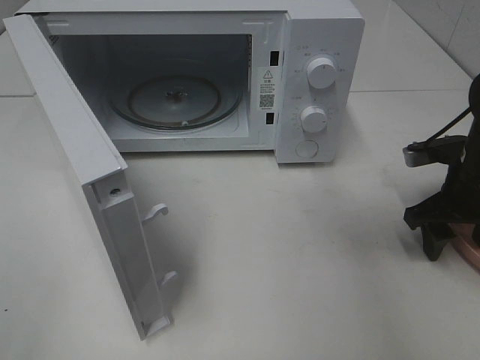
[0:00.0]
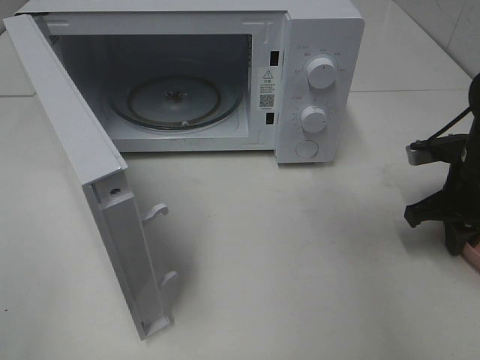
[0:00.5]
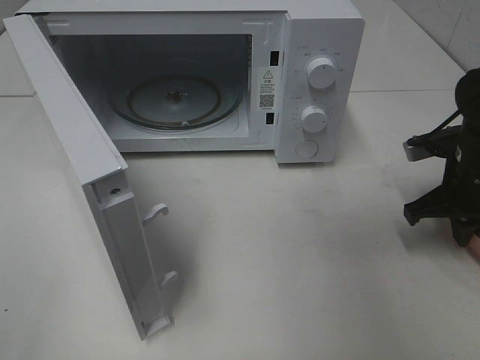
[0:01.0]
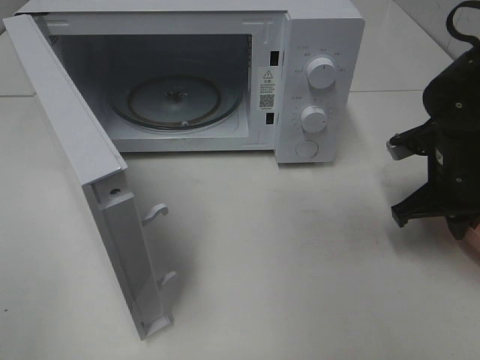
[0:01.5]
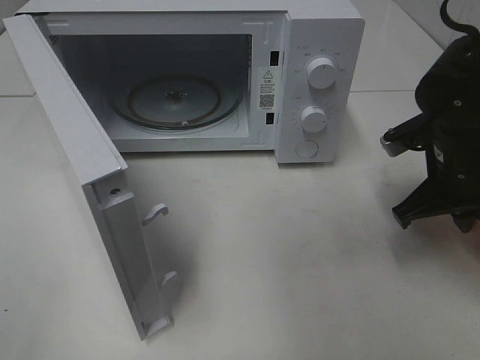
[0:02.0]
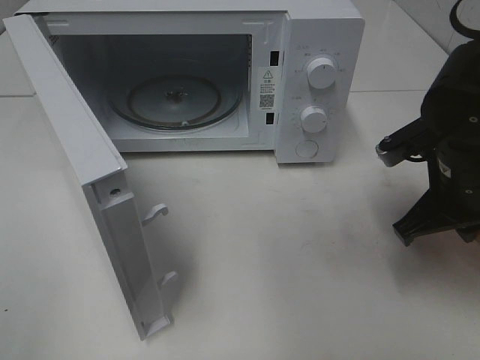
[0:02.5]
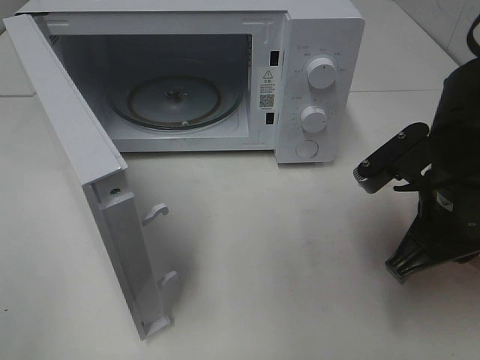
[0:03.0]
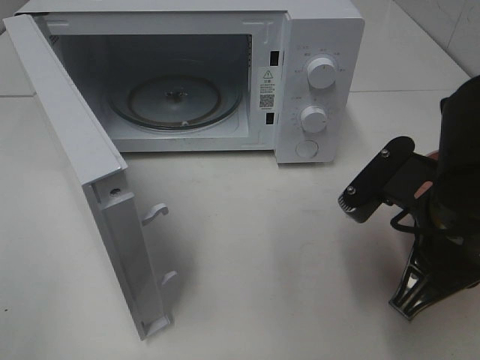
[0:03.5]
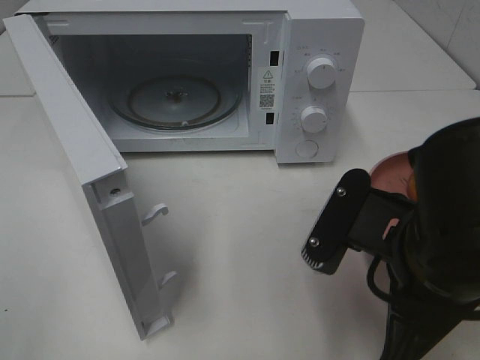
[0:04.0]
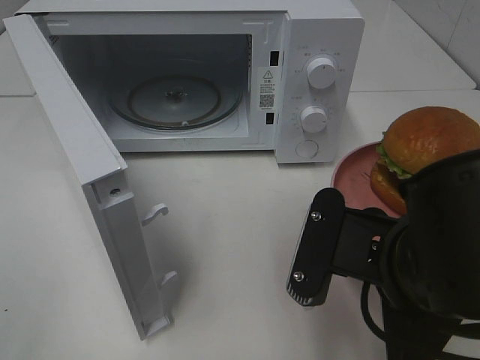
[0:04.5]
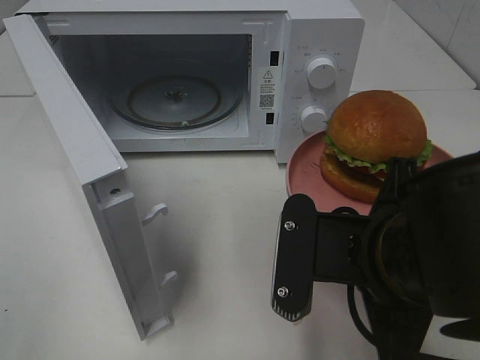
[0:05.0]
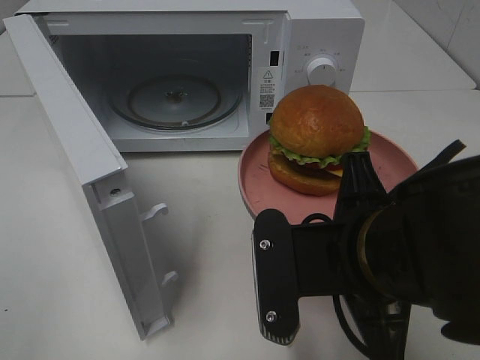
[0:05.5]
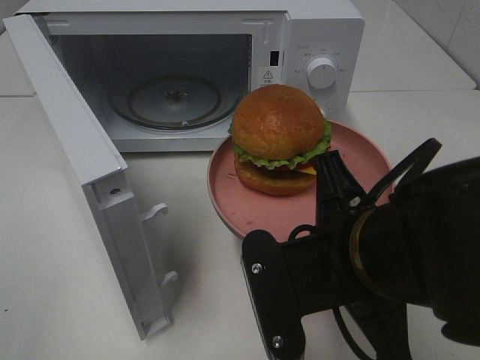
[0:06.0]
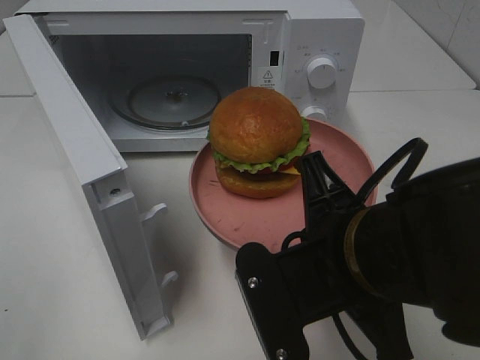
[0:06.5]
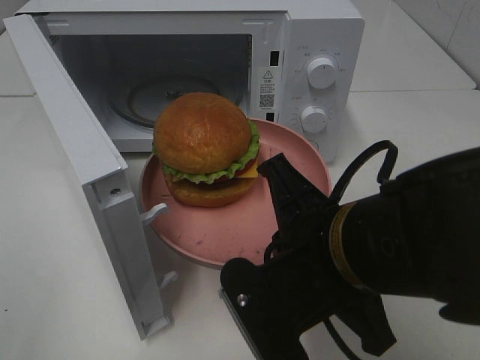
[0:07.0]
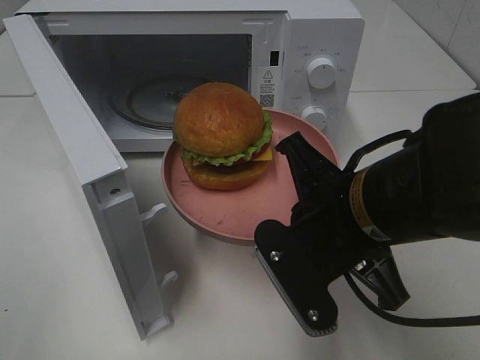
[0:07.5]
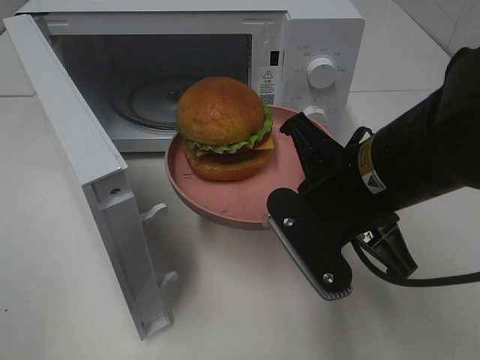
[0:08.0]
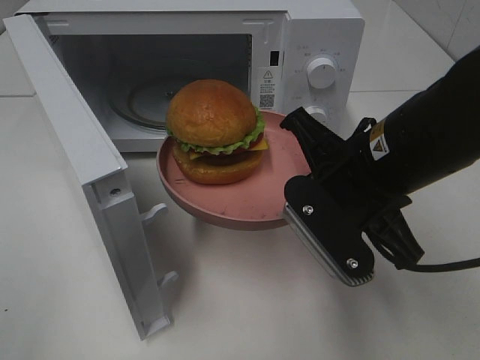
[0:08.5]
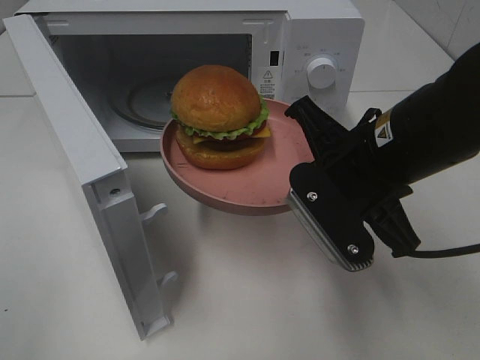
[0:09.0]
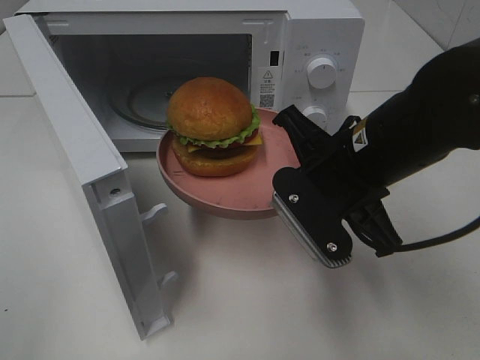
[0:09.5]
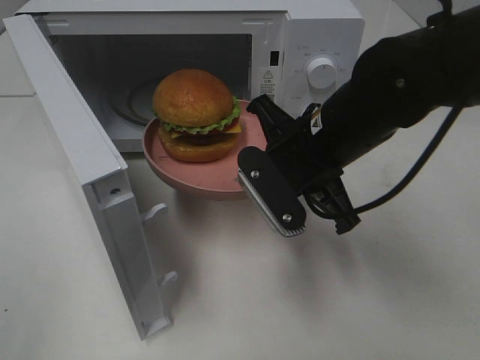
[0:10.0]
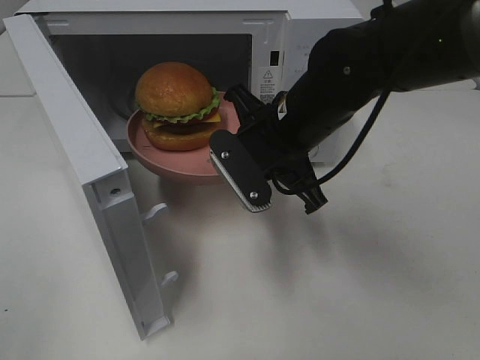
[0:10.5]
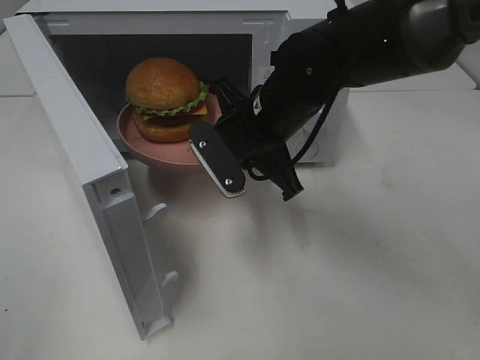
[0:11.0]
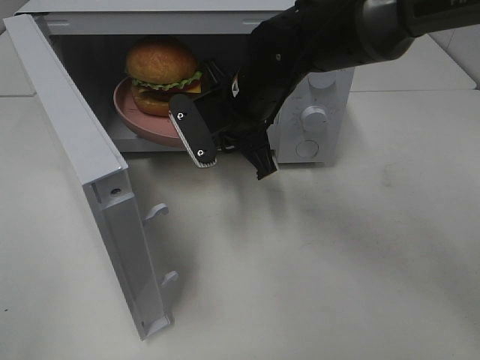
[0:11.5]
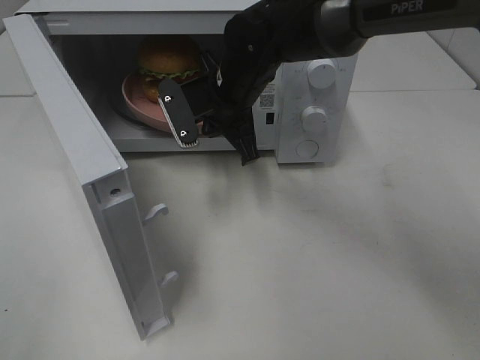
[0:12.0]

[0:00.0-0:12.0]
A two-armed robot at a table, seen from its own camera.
Task of the whole recording: Heat the burger.
0:00.0 to 0:02.0: The right gripper heads to the left, covering about 5 cm, and closes up.
0:02.0 to 0:04.0: The right gripper moves backward and to the left, approximately 20 cm.
0:06.0 to 0:08.0: The right gripper goes roughly 5 cm forward.
0:08.0 to 0:10.0: The right gripper travels forward by approximately 5 cm.
0:10.0 to 0:12.0: The right gripper heads forward and to the left, covering roughly 15 cm.

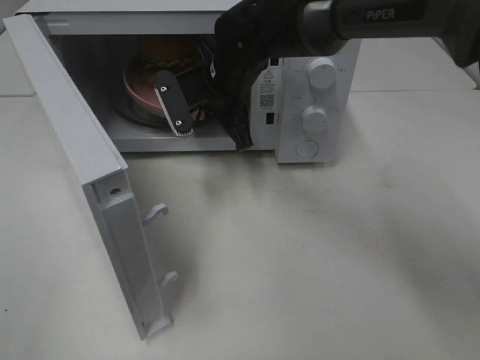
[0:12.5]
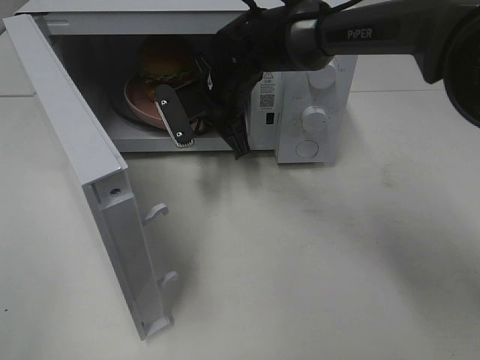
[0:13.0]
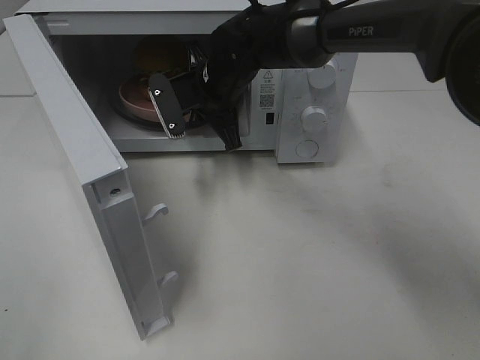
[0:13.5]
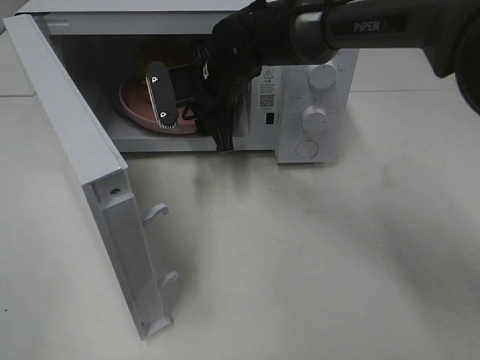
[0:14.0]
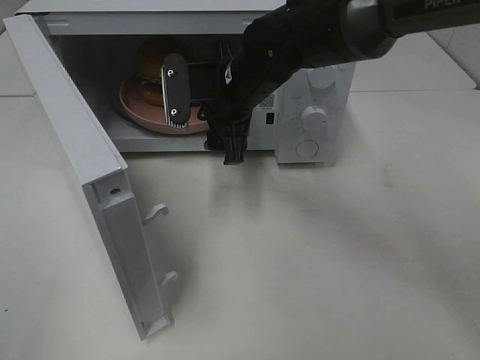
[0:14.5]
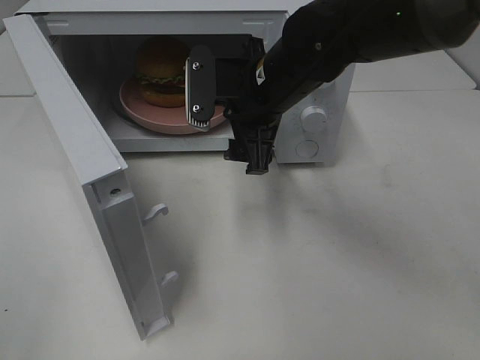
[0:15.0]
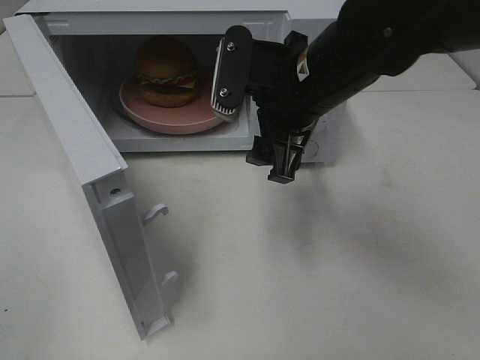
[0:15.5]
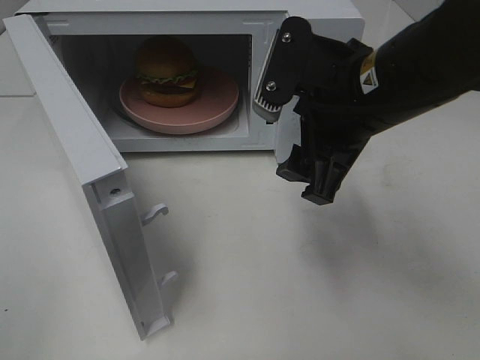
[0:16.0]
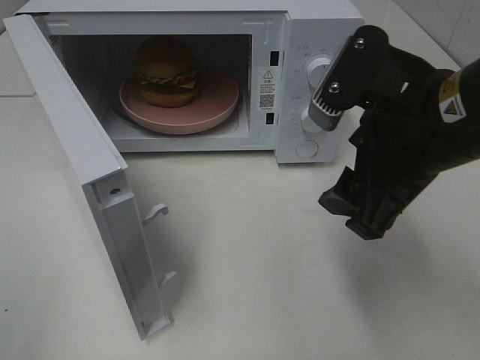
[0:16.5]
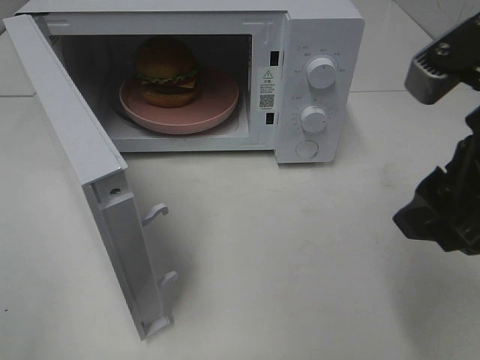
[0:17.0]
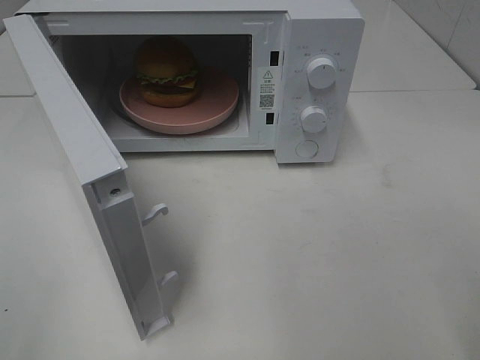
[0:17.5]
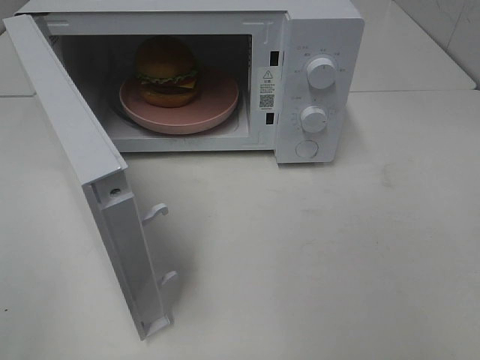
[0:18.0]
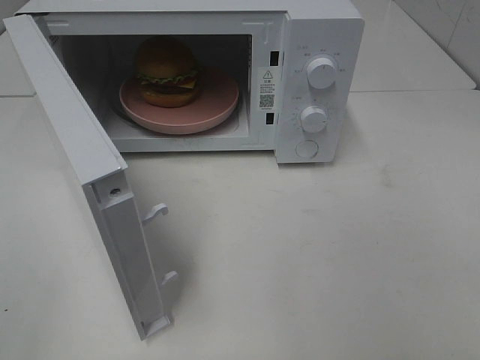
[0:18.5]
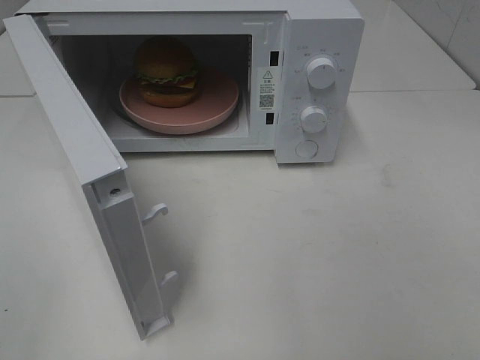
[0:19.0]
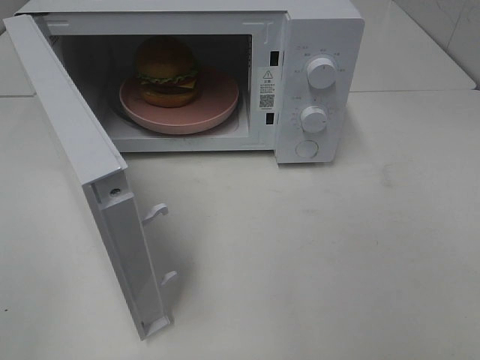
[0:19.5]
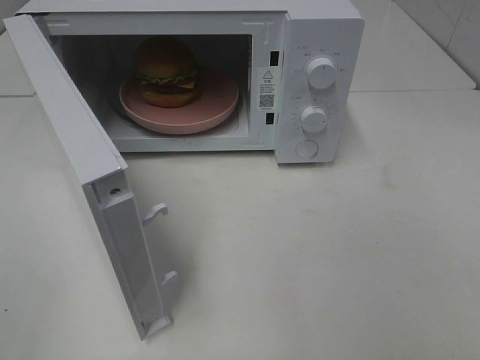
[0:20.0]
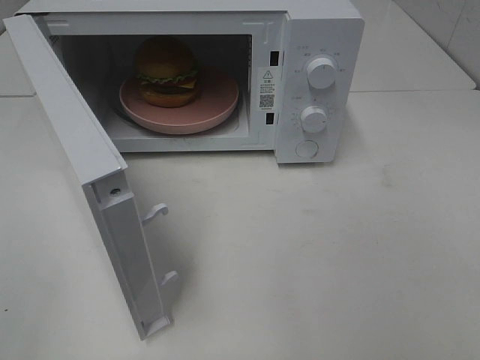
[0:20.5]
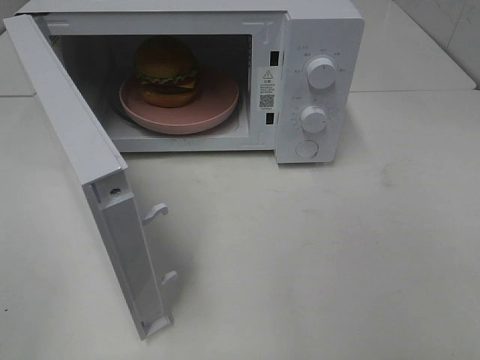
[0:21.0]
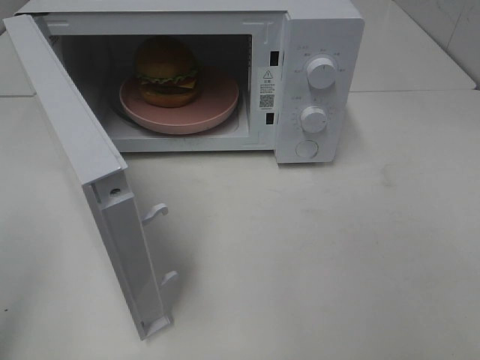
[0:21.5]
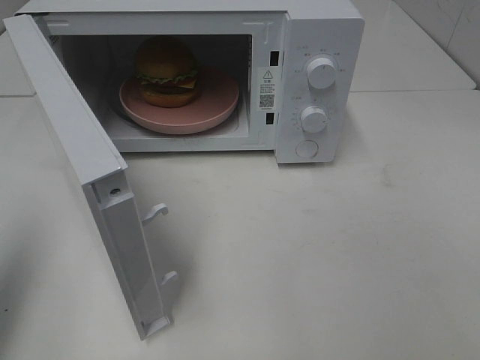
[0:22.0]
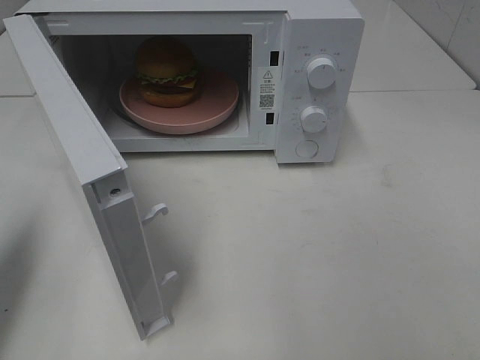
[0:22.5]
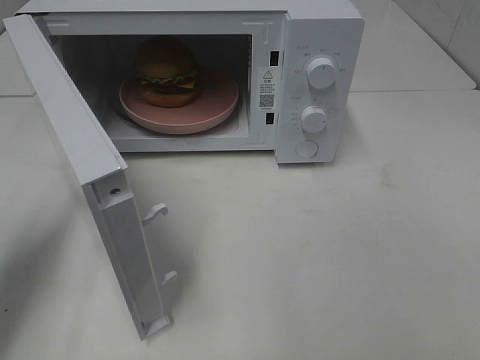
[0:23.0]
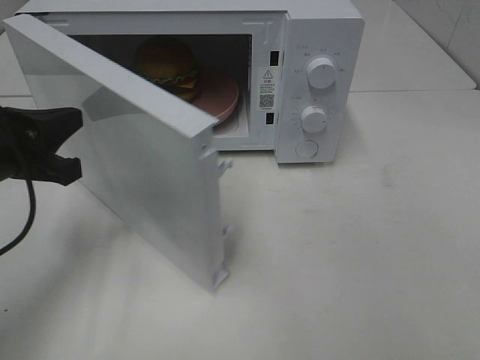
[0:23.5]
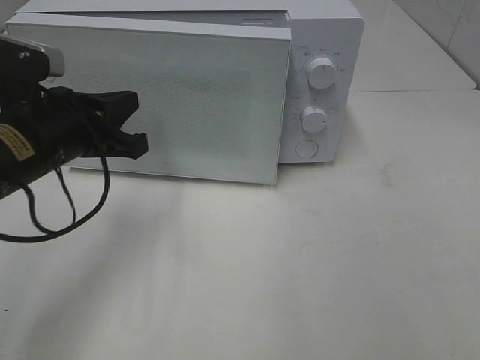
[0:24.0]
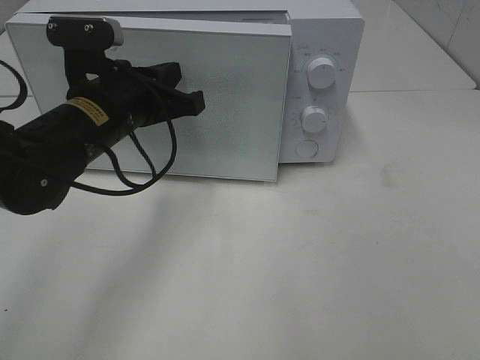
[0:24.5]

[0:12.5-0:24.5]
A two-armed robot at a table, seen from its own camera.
Task of the whole recording: Heat the burger.
0:12.5 to 0:14.5: The right gripper opens its fingers.
0:14.5 to 0:16.5: The right gripper shifts about 25 cm backward, to the right and upward.
0:16.5 to 0:18.5: The right gripper travels backward and to the right by some 25 cm.
0:20.5 to 0:22.5: The left gripper travels forward by roughly 20 cm, and closes.
0:22.5 to 0:24.5: The left gripper heads to the right and forward, covering some 25 cm.

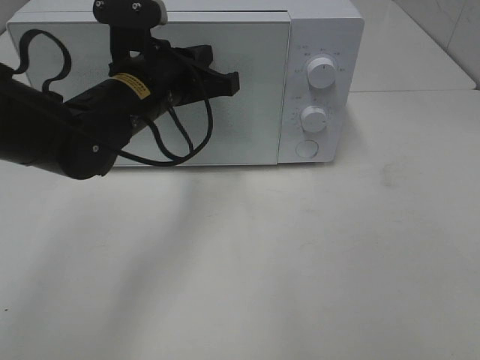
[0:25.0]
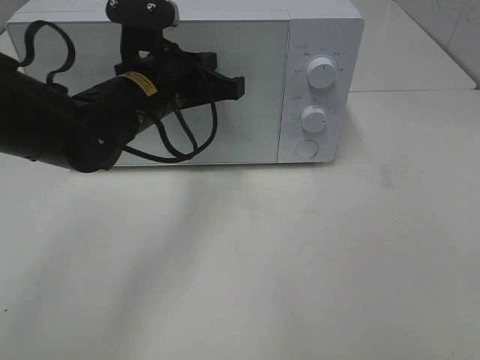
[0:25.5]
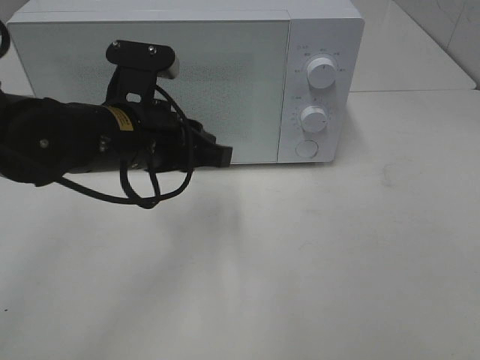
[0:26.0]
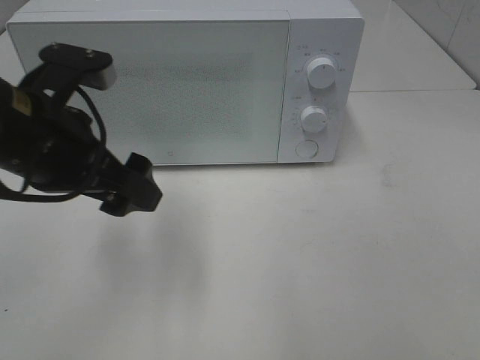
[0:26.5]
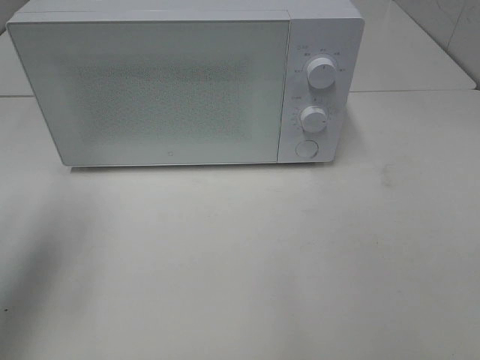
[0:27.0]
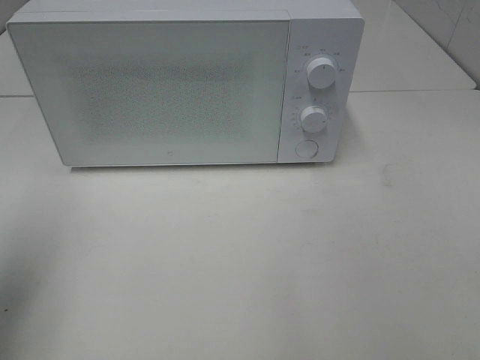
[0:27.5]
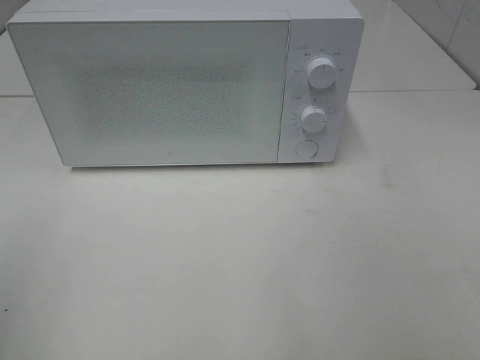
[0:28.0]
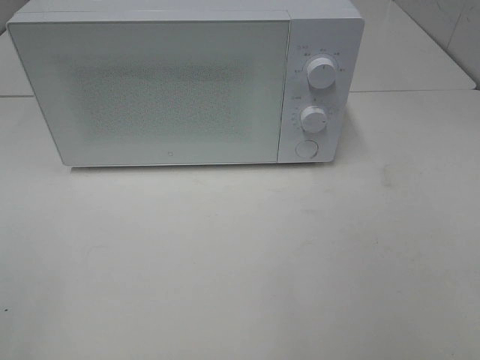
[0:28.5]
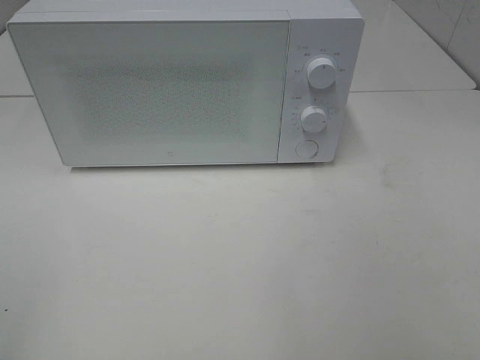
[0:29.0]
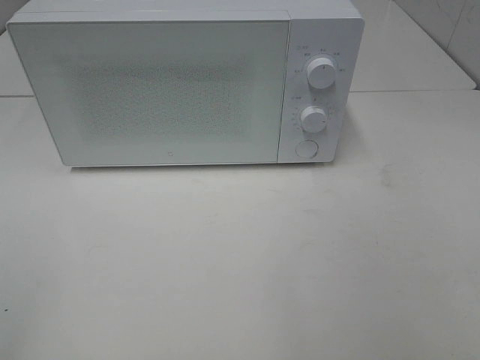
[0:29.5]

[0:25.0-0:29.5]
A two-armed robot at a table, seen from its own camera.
Task of the whole recording: Heat the burger.
0:25.0 to 0:27.0: The left gripper is displaced to the left, backward and upward by roughly 25 cm, and opens up.
0:27.0 to 0:29.5: The left gripper heads backward, covering roughly 20 cm.
